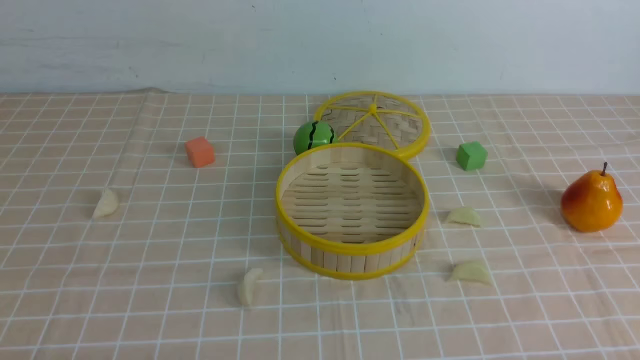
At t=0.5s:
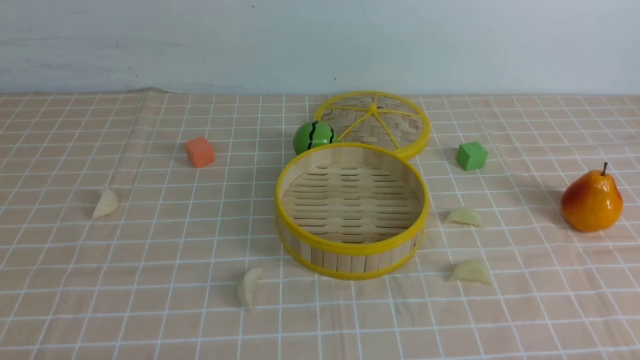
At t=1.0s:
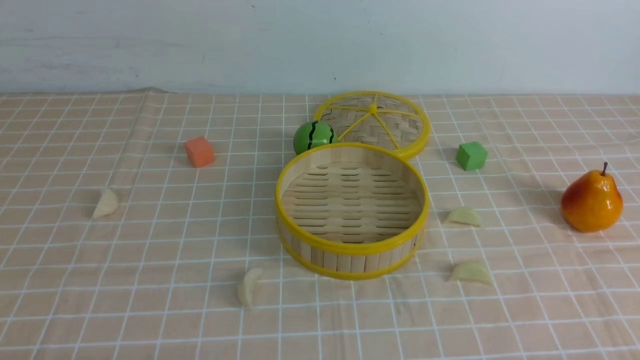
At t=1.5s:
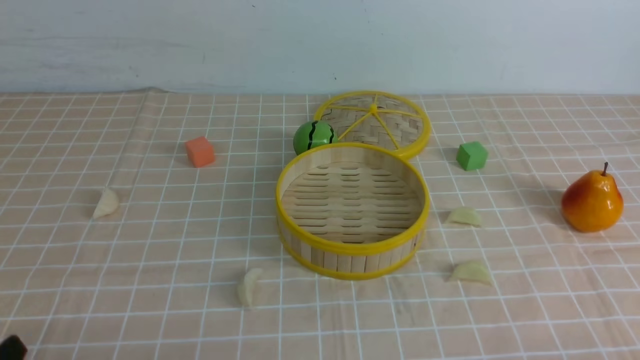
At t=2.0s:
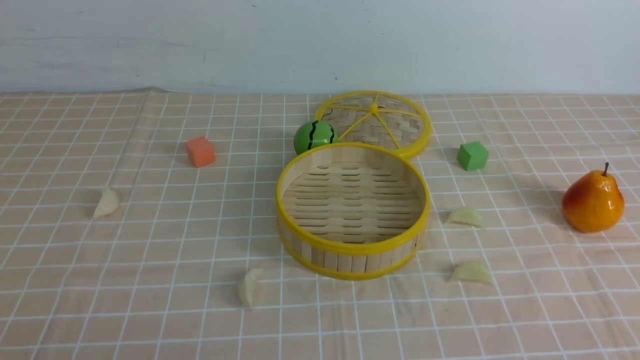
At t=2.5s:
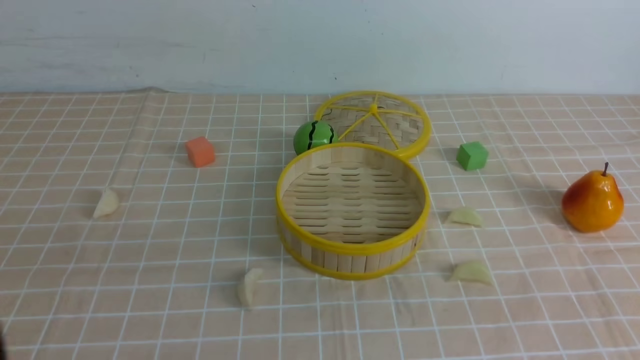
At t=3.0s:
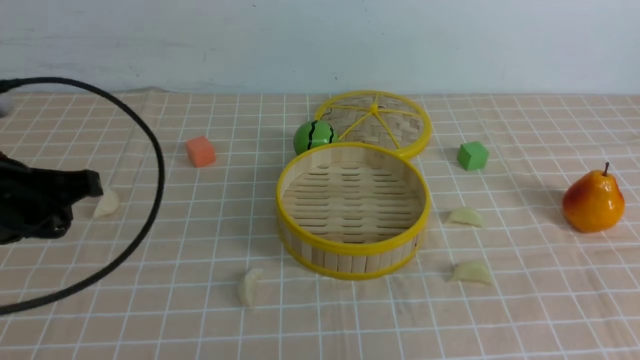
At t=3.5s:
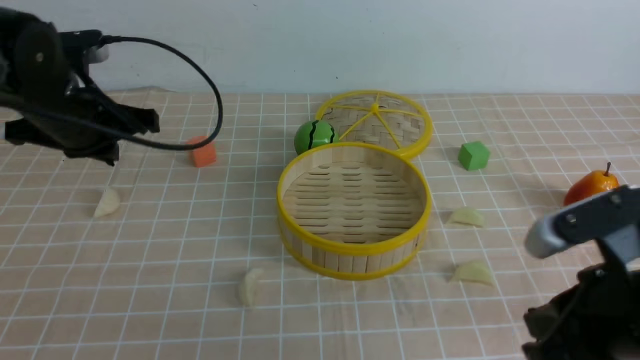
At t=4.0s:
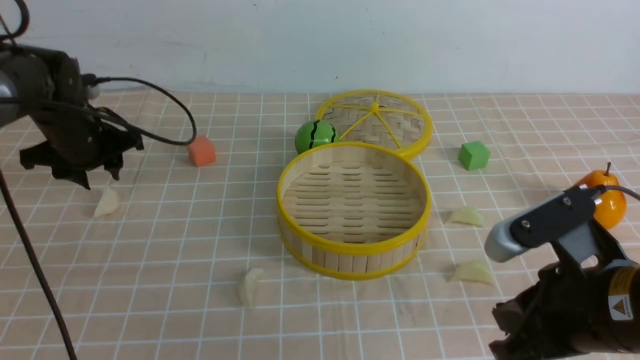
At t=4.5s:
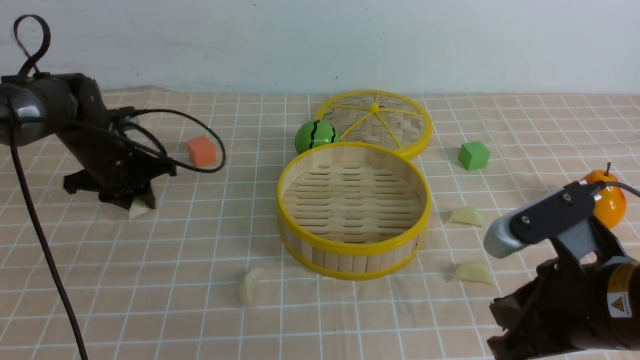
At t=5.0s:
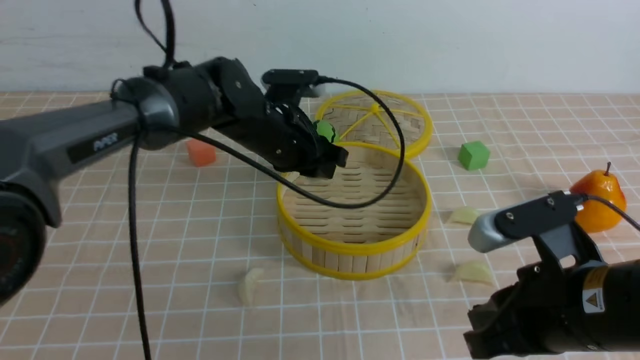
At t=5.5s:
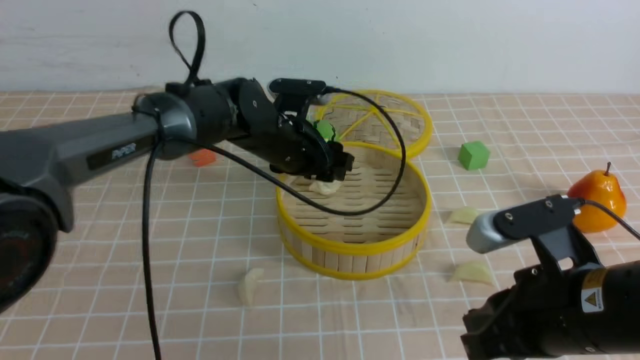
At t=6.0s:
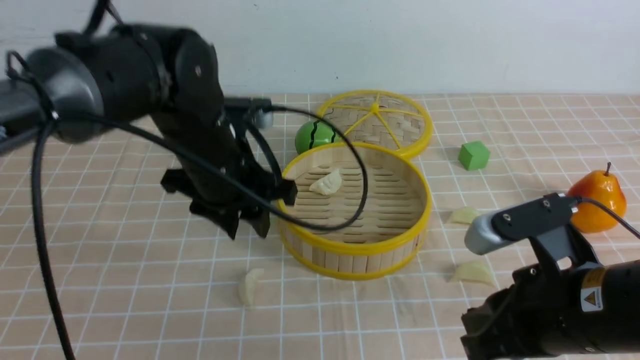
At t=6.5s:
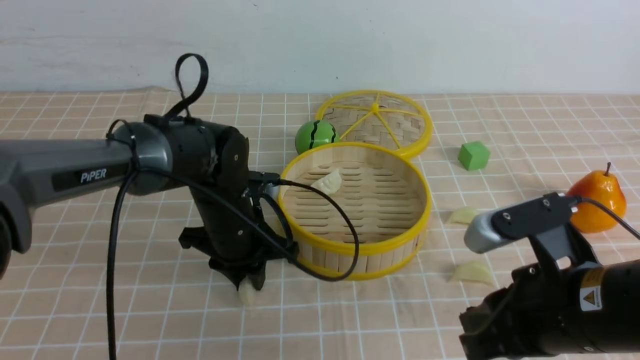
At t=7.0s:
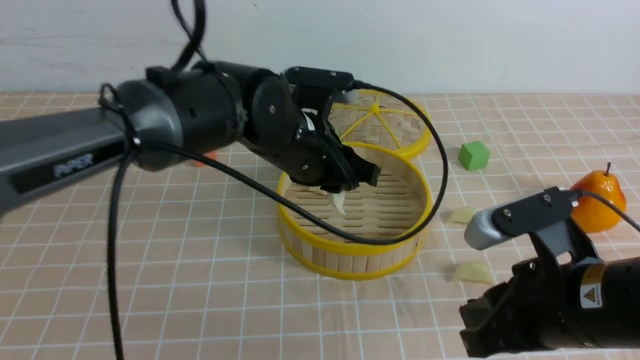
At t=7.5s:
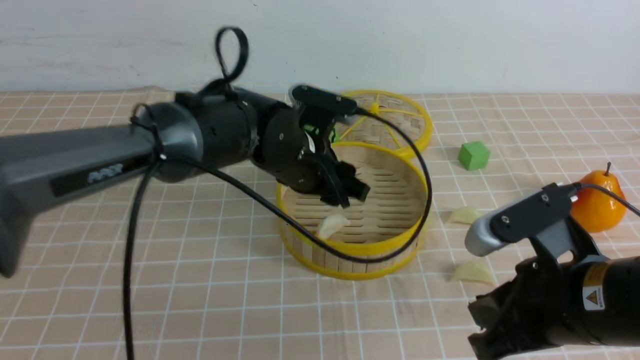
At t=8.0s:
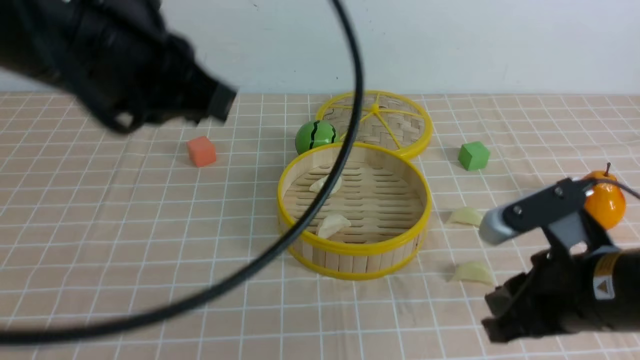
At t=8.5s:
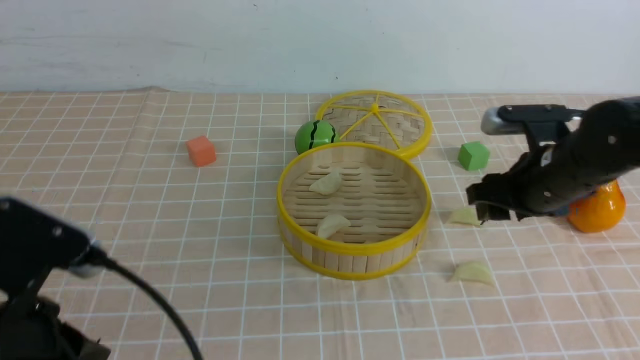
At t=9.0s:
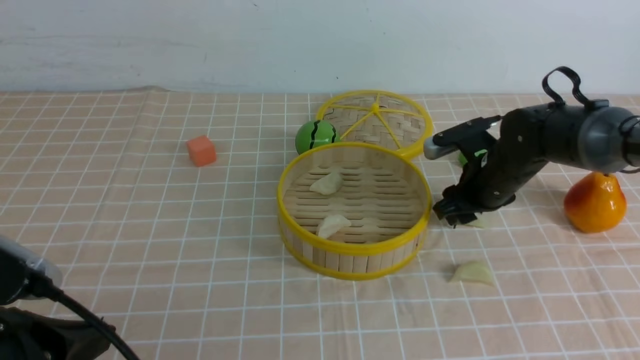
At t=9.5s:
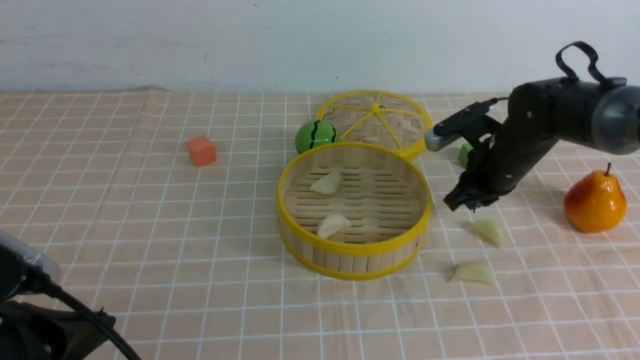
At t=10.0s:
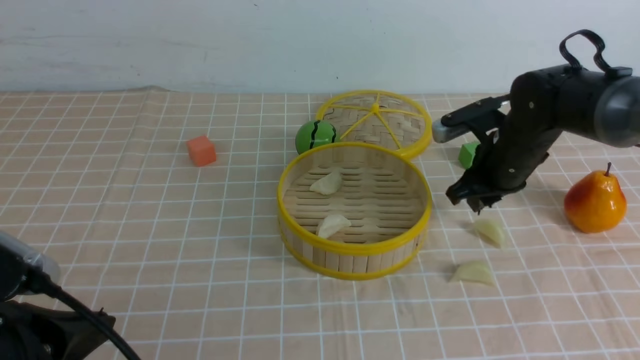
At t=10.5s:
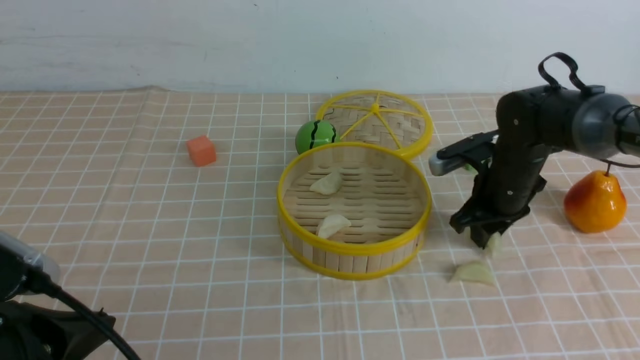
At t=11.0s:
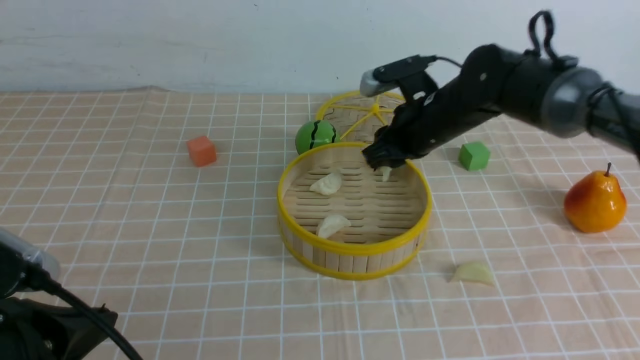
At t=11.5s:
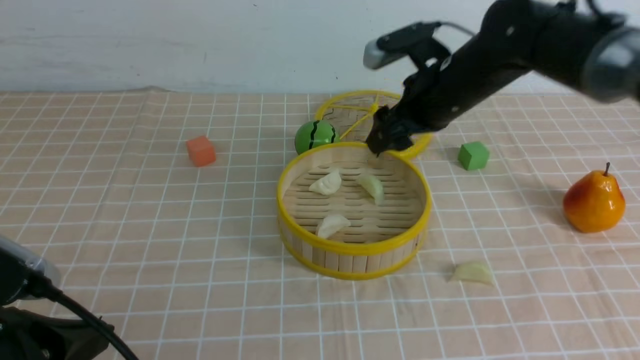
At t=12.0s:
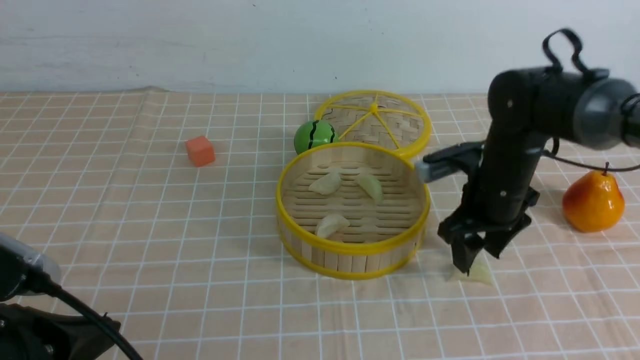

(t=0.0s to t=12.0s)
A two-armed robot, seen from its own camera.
Task of the whole recording: put the dumplings into the steamer on the table with the brown tablecloth.
Step, t=0.0s - t=4.0s: use the left arm to grab a dumpling.
Step, t=4.5s - t=5.5s: use the left arm to put the dumpling into the steamer.
Step, t=6.5s - t=7.5s: use the left arm to put the dumpling into the steamer.
Step, t=8.0s - t=10.0s: use the right arm to grab a dumpling.
Step, t=10.5s - t=11.0s: use the right arm to put the dumpling into the steamer.
t=2.0s - t=4.0s: The right gripper heads forward and to the left, covering approximately 20 cm, and closes, while the left gripper moves forward, some 40 cm, and closes, then reopens.
t=4.0s - t=6.0s: The left gripper travels to the right and backward by about 25 cm.
t=6.0s - t=8.0s: The left gripper moves upward and backward, approximately 20 cm, and closes.
t=8.0s - t=10.0s: The right gripper moves forward, roughly 20 cm, and opens and closes again, while the left gripper goes approximately 20 cm downward, backward and to the left.
t=10.0s - t=12.0s: The right gripper moves some 10 cm upward and comes back, and opens its fingers.

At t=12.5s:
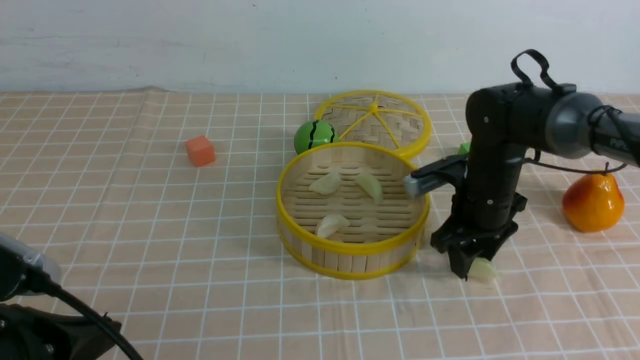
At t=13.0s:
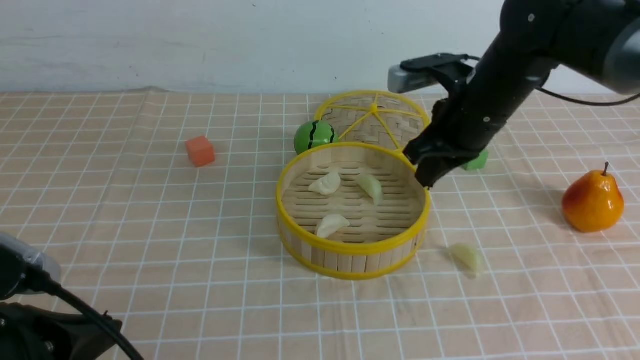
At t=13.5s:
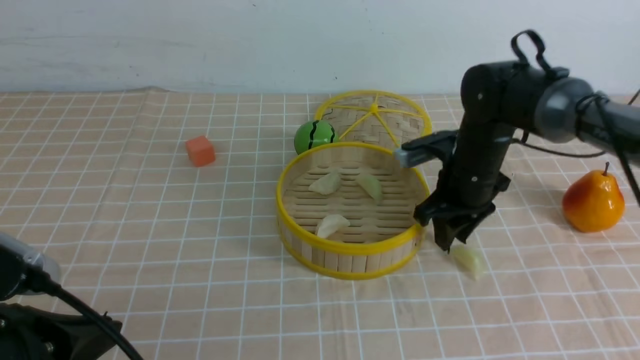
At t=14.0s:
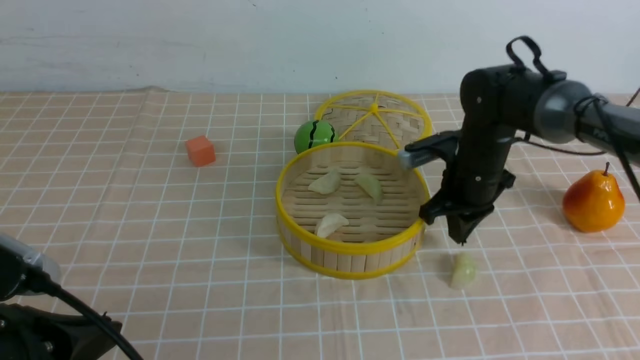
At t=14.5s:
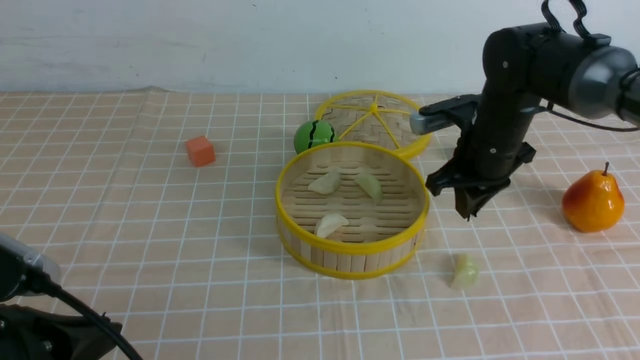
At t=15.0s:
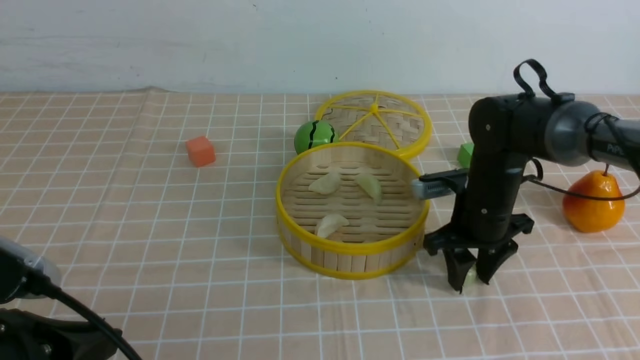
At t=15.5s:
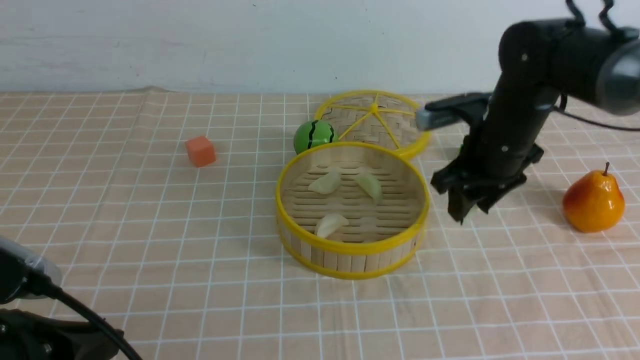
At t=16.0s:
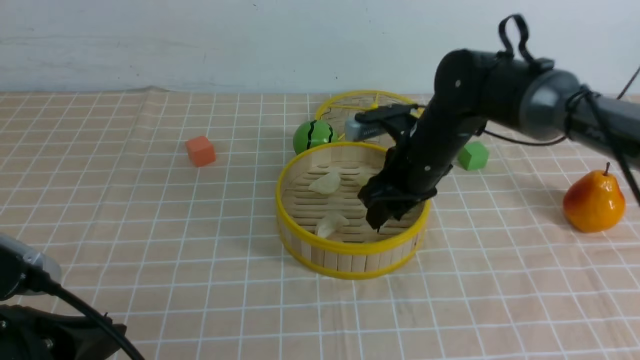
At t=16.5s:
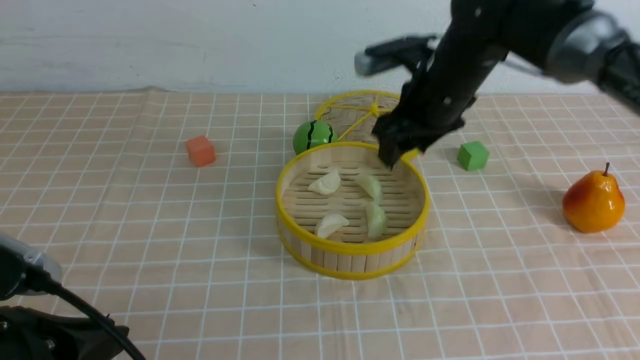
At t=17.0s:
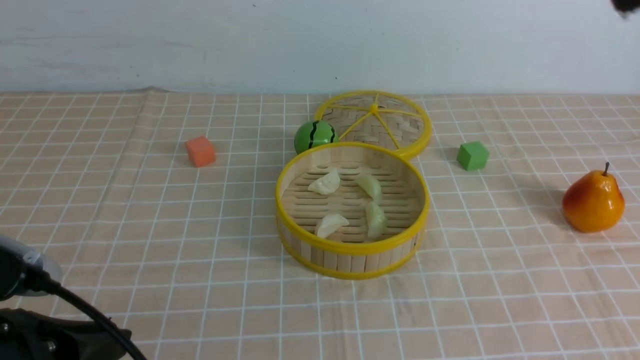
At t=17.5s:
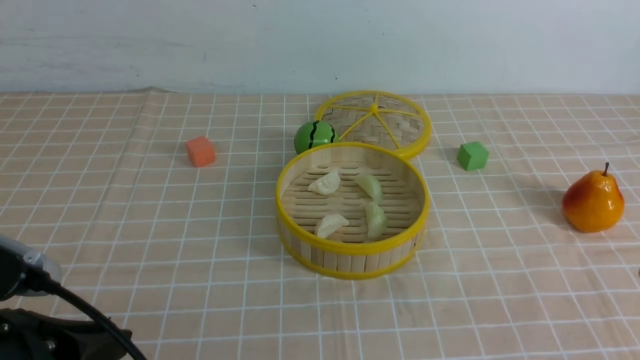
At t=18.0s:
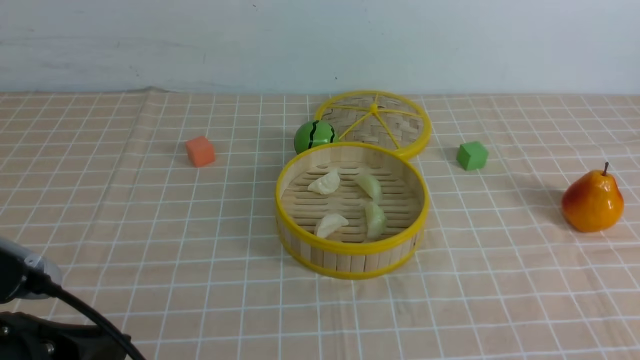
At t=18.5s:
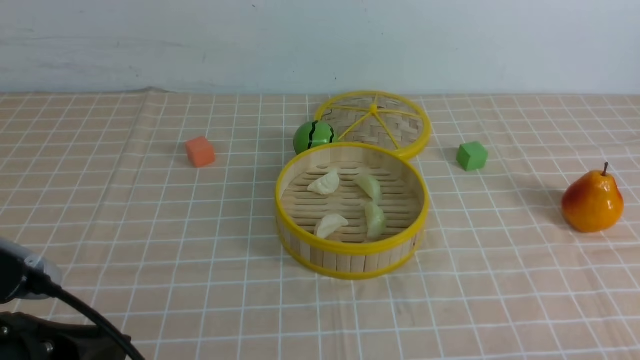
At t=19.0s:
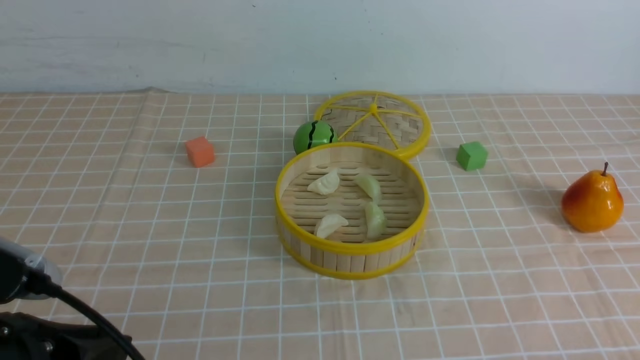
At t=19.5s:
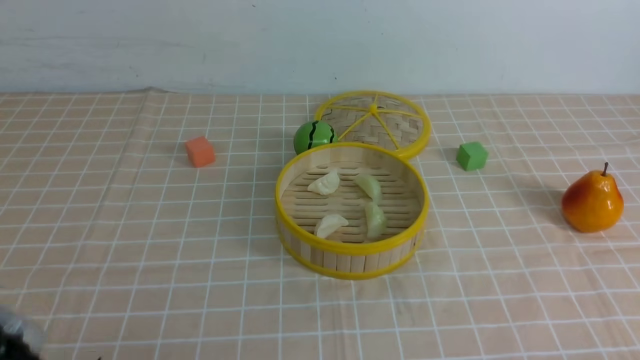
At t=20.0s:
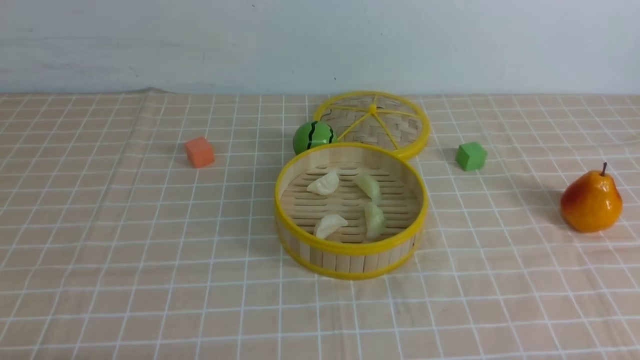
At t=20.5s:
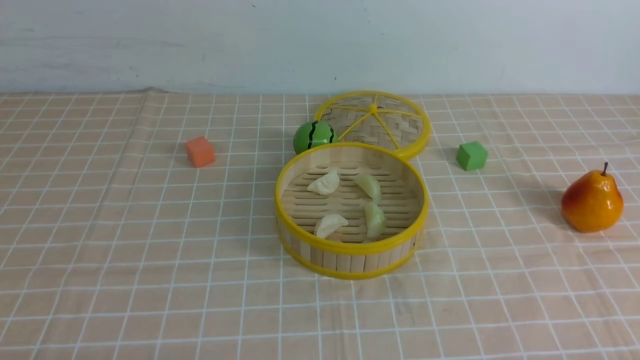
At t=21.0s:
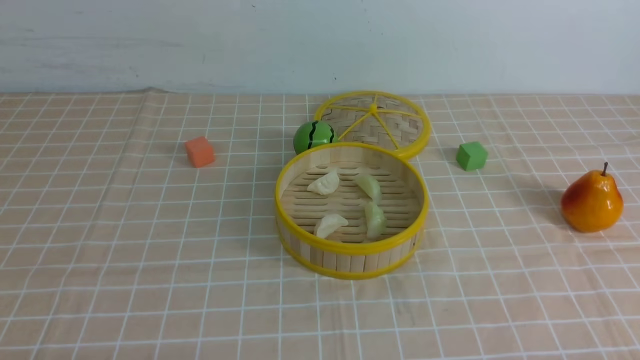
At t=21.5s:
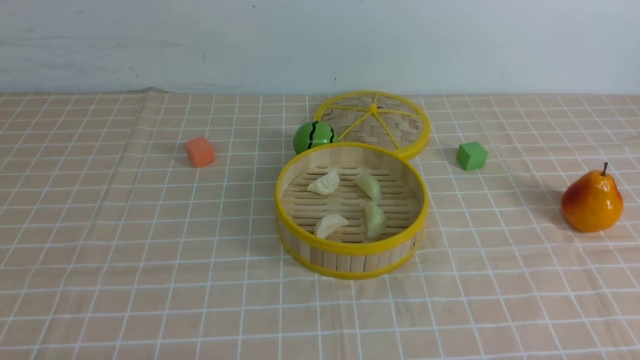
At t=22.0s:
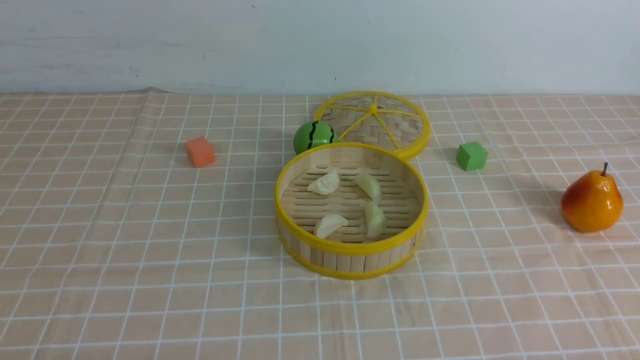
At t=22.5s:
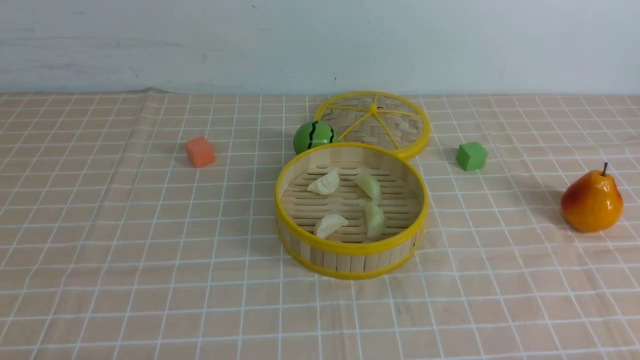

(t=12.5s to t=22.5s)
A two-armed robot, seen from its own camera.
Task of the whole recording: put the dumplings into the steamer on the table with the brown tablecloth.
Step, t=12.5s - t=15.0s: use the right arm to grab a dumpling.
Step, t=15.5s - t=16.0s: use the right arm to put the dumpling into the steamer.
t=14.5s - t=16.5s: The right gripper heads upward and to the left, covering approximately 10 cm, and opens its fingers.
t=16.5s - t=18.5s: The right gripper shifts some 40 cm backward, to the right and downward, and closes up.
t=18.5s - t=20.5s: The left gripper shifts about 15 cm downward, backward and to the left.
t=20.5s - t=22.5s: Both grippers stay put.
